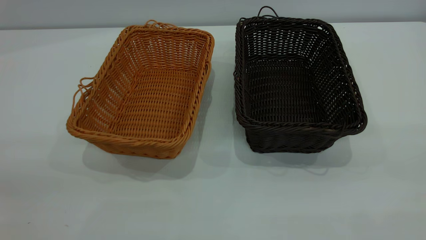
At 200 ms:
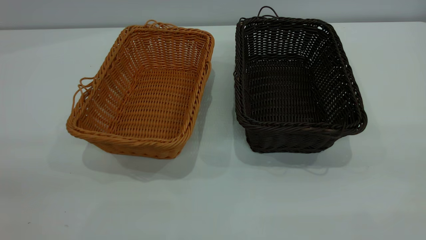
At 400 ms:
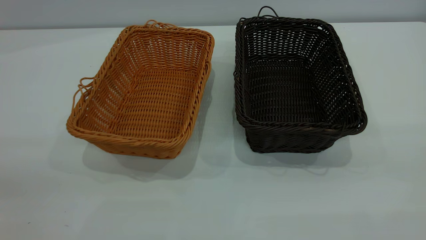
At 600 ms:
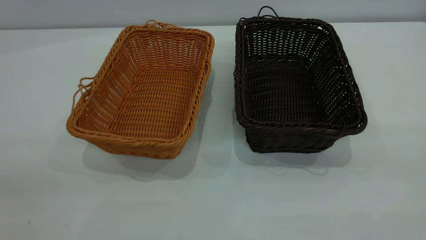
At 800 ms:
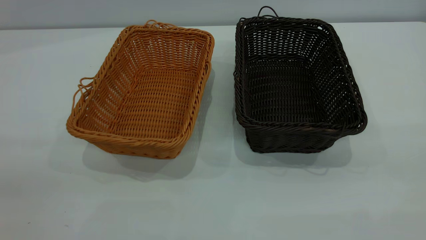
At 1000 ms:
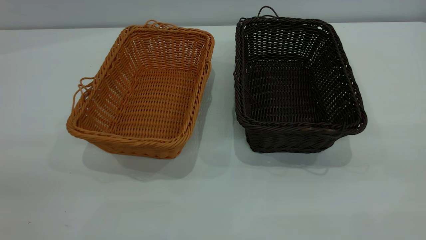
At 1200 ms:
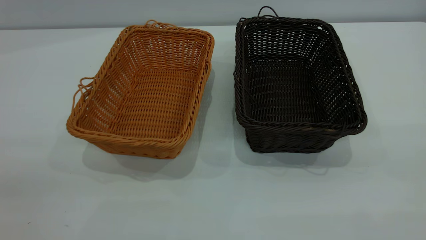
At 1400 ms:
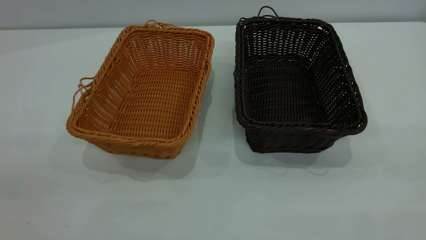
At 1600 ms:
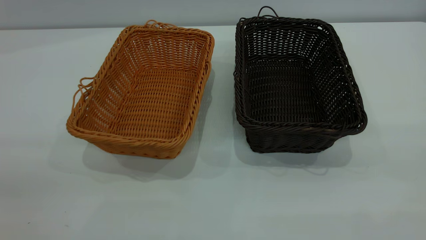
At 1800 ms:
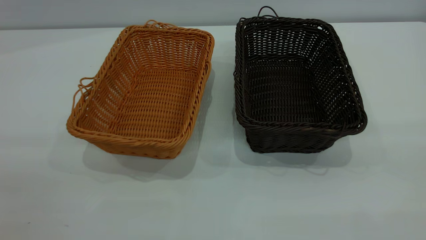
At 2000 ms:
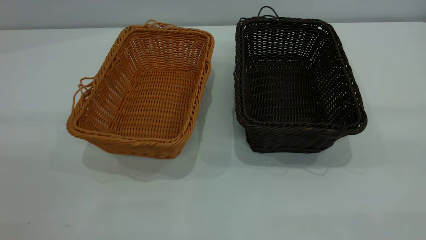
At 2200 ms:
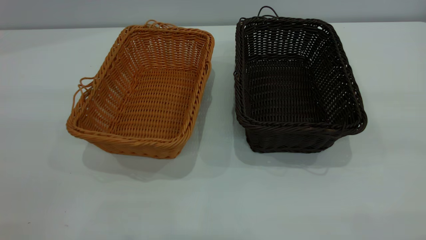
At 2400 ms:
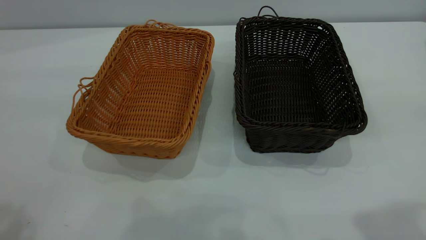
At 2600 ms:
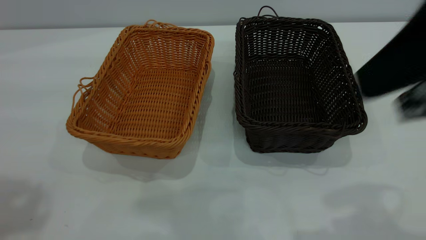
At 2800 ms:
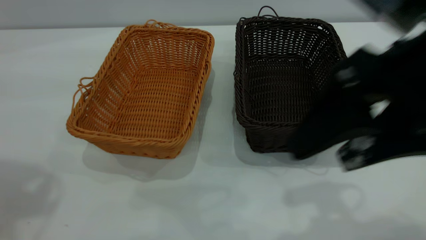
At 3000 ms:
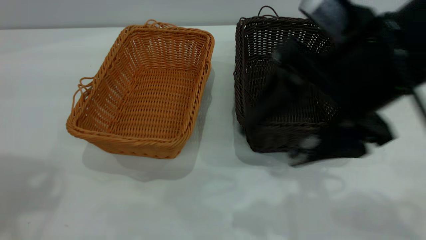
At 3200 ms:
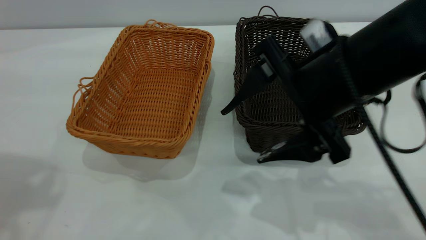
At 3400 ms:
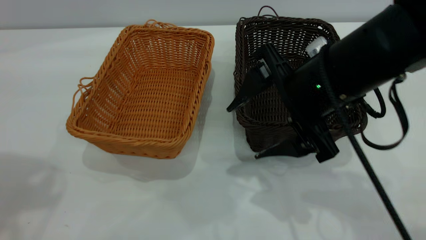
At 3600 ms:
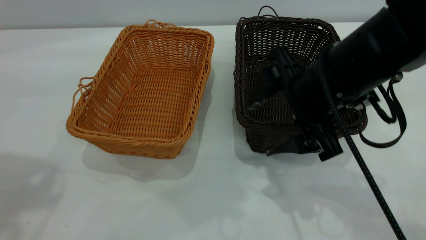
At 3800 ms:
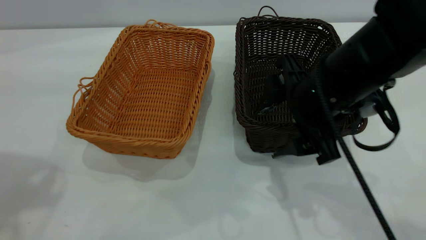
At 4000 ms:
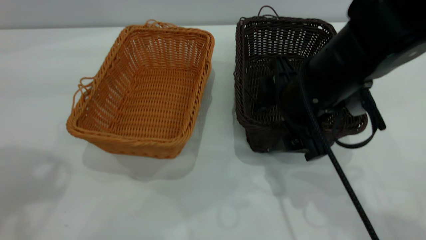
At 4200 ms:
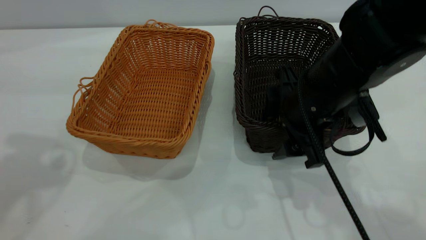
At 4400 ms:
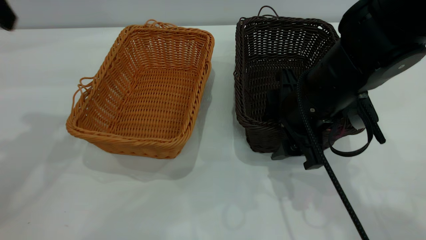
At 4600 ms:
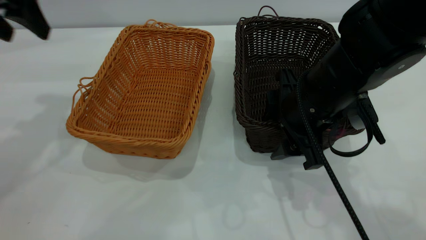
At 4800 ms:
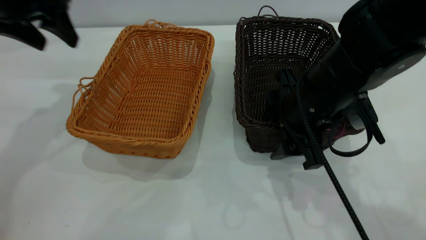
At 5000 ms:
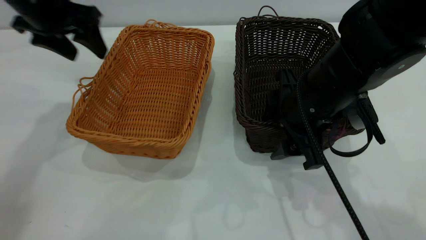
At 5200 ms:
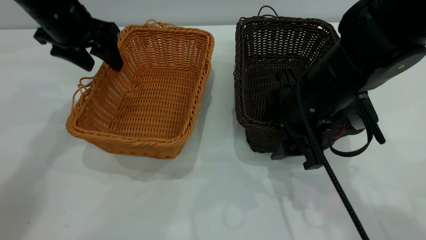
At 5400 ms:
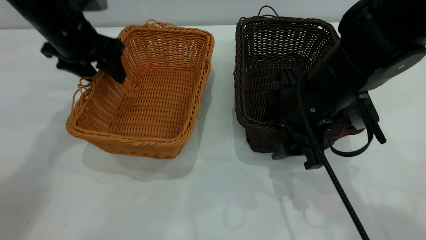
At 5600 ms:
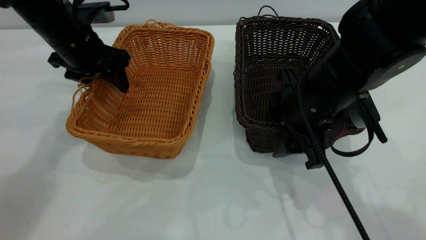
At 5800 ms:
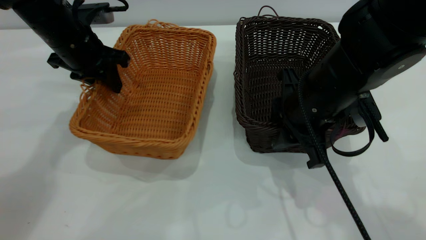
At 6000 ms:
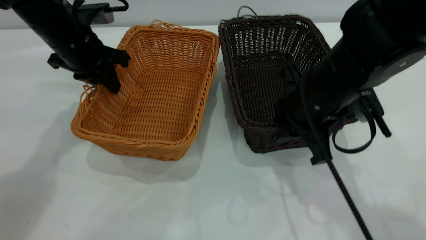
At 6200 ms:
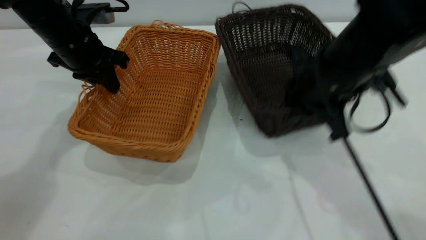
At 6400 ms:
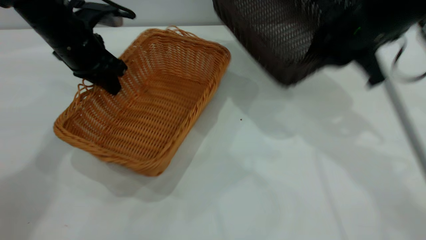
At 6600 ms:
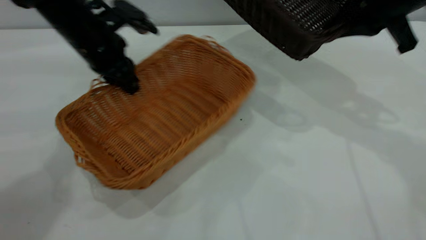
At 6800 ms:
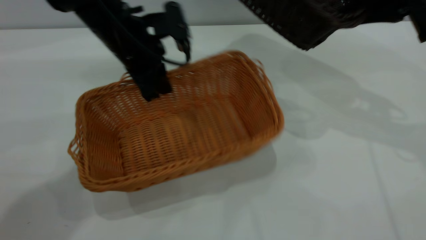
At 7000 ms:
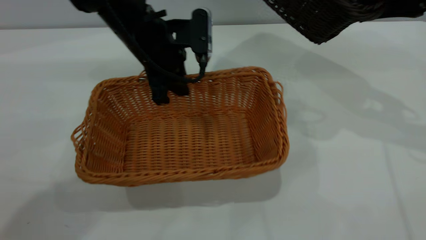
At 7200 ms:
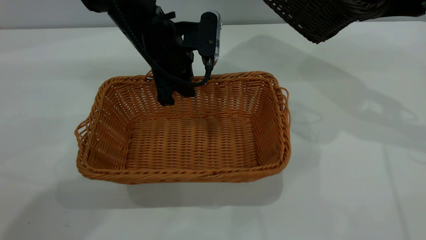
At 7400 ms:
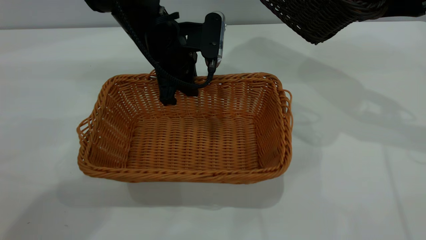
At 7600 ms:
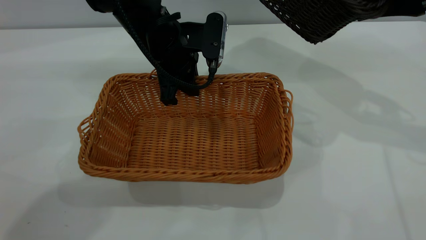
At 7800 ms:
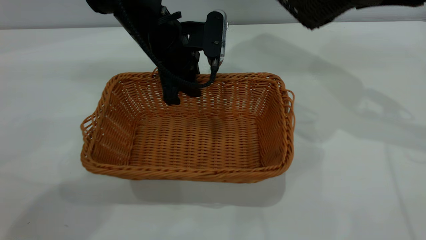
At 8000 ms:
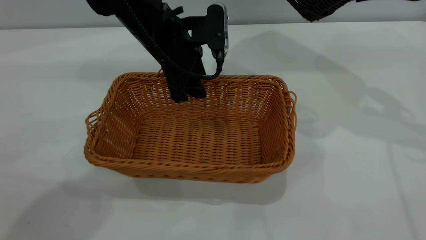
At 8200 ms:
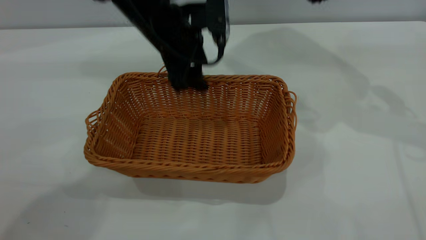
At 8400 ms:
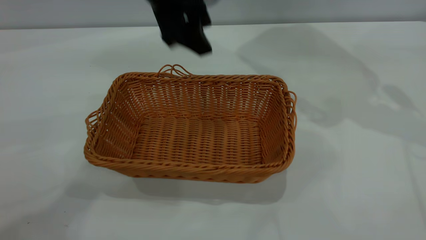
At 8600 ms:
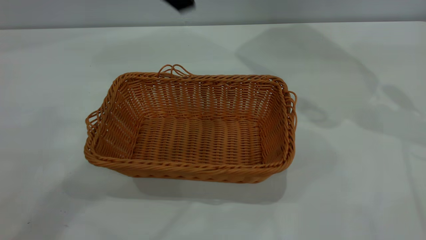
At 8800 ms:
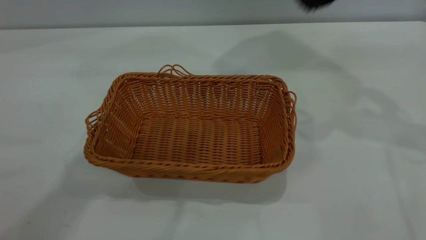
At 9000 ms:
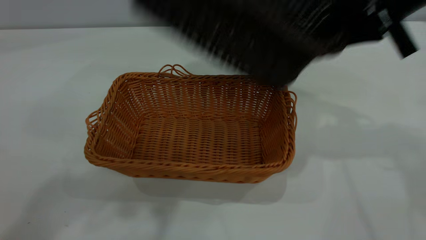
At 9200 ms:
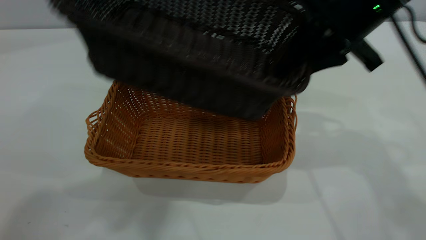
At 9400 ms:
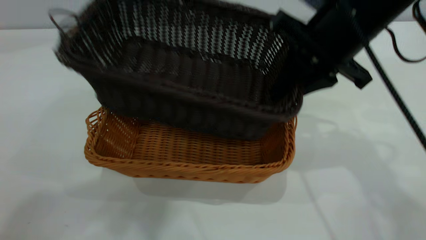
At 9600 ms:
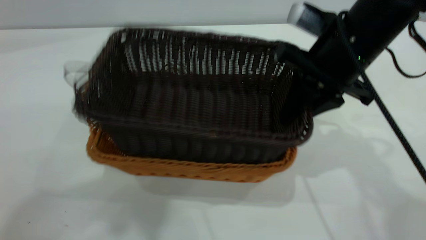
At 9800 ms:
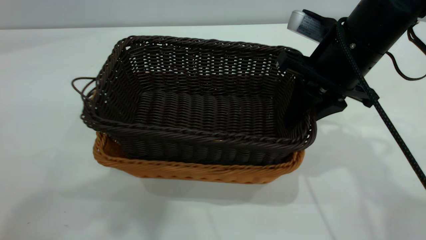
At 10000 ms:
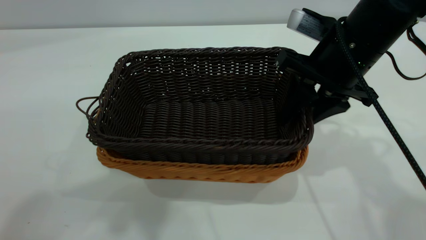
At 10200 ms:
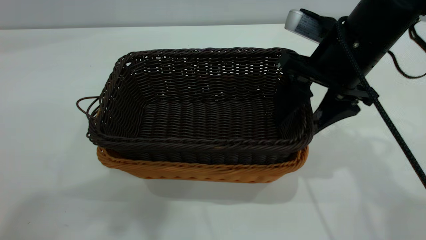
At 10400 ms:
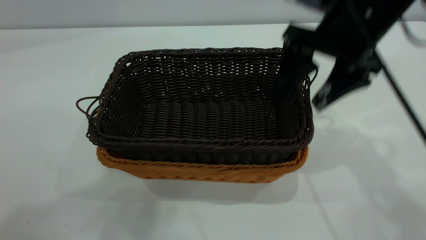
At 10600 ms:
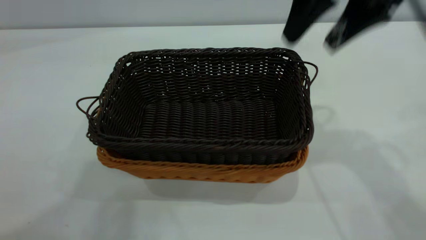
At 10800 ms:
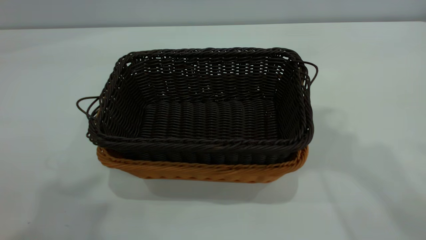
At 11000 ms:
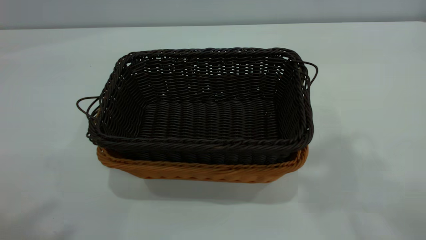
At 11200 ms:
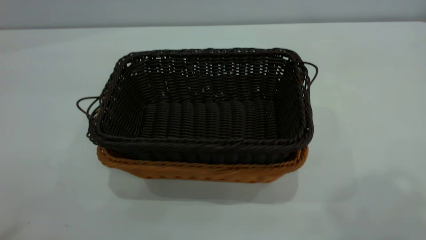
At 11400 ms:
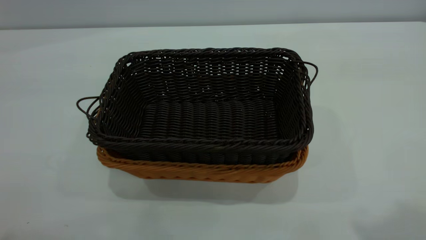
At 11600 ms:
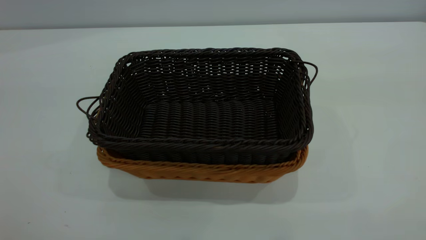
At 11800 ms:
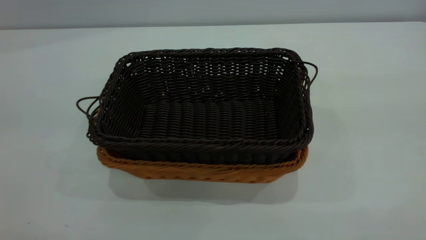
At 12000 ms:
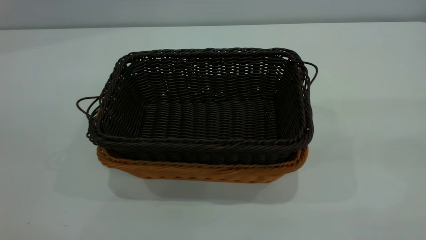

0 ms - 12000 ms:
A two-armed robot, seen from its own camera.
Task of the whole recording: the left gripper grasp the brown basket and place it in the center of the table, the right gripper grasp the black basket and place it inside the brown one.
Step, 0 ms - 6200 ms: Pick up the light basket with the right gripper.
Step, 6400 ms - 8200 ms: Place the light-colored basket in the center.
Step, 8400 ms - 10400 ms: Place the dark basket on top of the light basket.
0 ms - 1600 ms: Both grippers stay put.
1600 ms - 3000 ms: The right gripper moves forward, to the left and downward, about 30 cm.
3000 ms - 4400 ms: The left gripper shifts about 15 cm forward and downward. The right gripper shifts approximately 10 cm downward and forward.
4400 ms - 6000 ms: The right gripper closes its fingers. The left gripper goes roughly 20 cm downward, forward and to the right, and closes its fingers.
6000 ms - 7600 ms: The left gripper heads to the right, covering approximately 15 cm; the right gripper travels to the right, upward and forward by about 20 cm.
7600 ms - 9000 ms: The right gripper goes some 10 cm to the left. Meanwhile the left gripper travels upward and backward by some 35 cm, and opens its fingers.
9000 ms - 10400 ms: The left gripper moves approximately 5 cm, while the right gripper opens its fingers.
10400 ms - 12000 ms: The left gripper shifts some 20 cm backward, downward and to the left. The right gripper goes some 35 cm backward, upward and to the right.

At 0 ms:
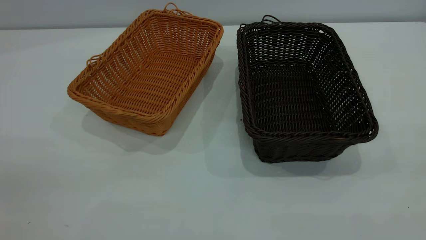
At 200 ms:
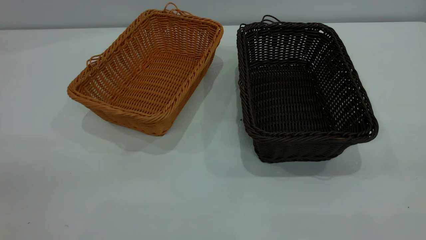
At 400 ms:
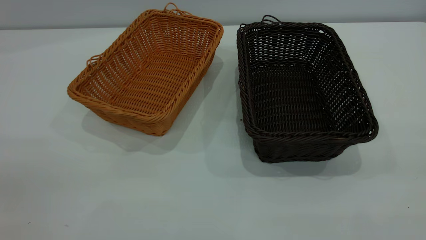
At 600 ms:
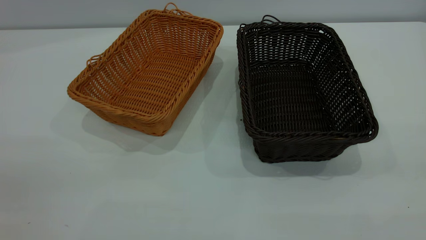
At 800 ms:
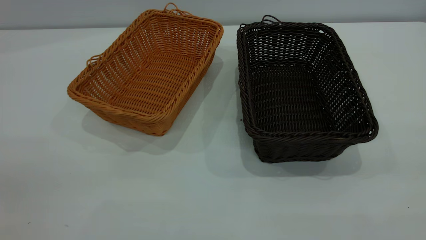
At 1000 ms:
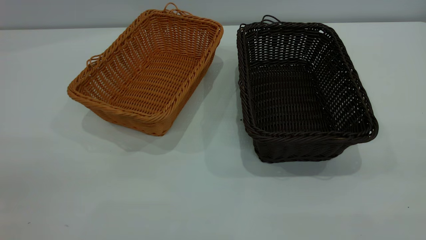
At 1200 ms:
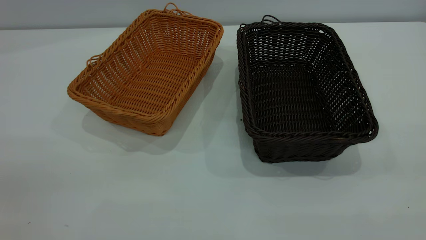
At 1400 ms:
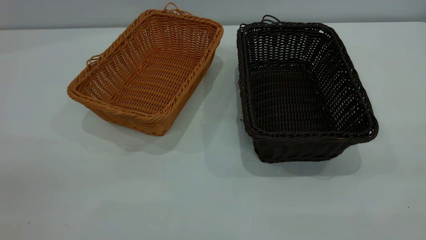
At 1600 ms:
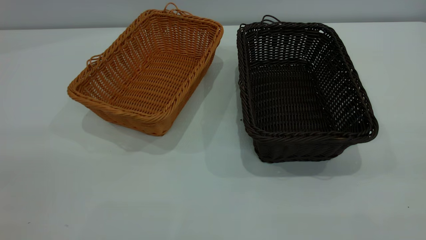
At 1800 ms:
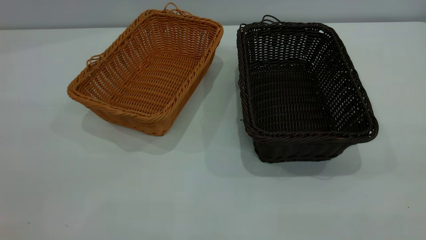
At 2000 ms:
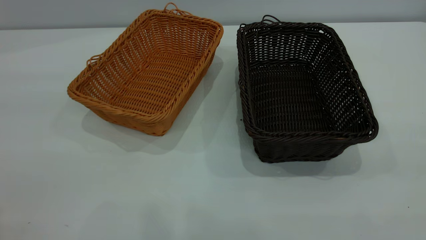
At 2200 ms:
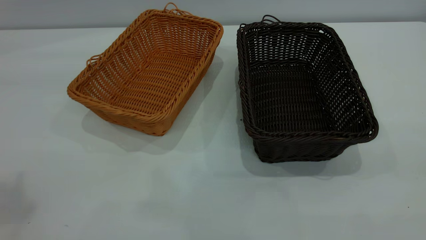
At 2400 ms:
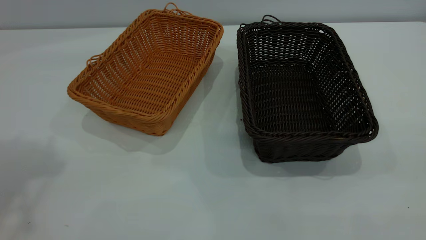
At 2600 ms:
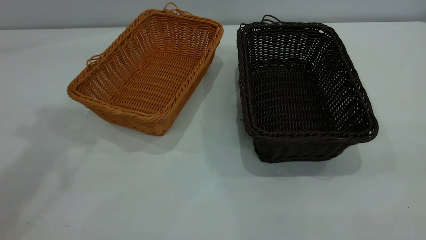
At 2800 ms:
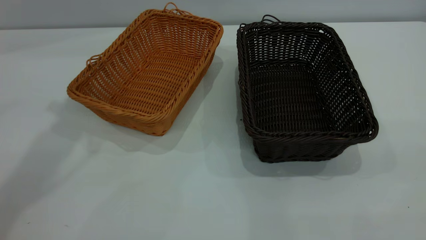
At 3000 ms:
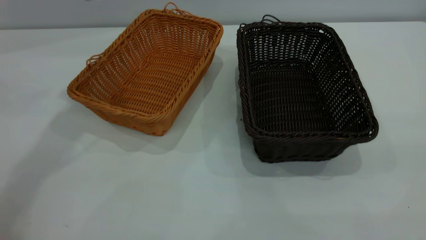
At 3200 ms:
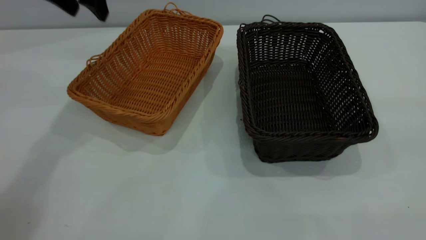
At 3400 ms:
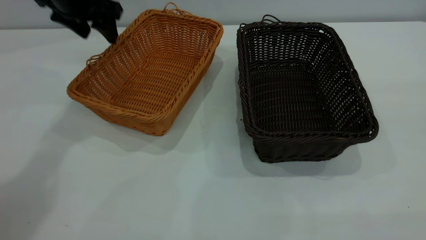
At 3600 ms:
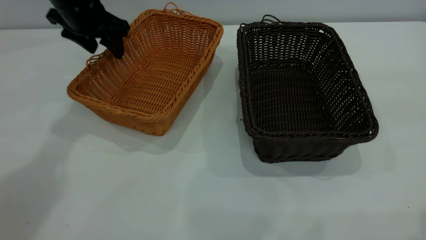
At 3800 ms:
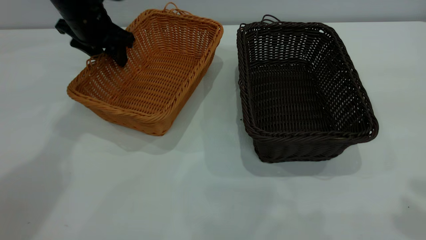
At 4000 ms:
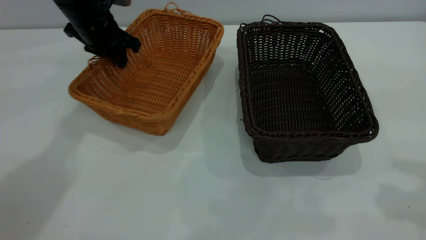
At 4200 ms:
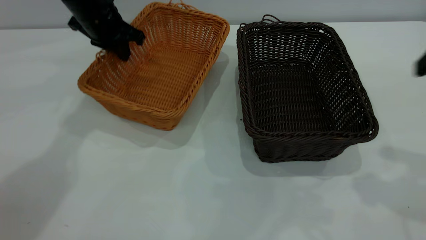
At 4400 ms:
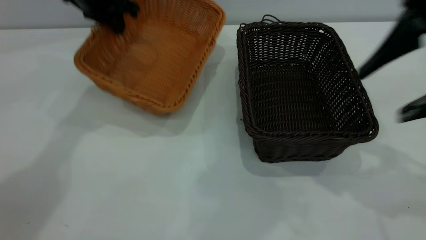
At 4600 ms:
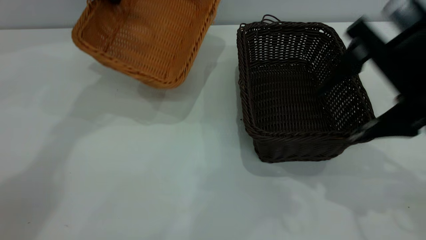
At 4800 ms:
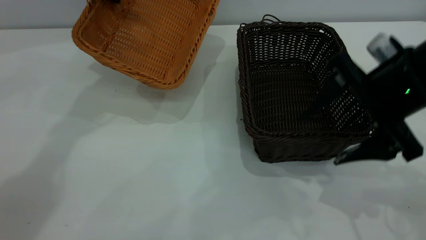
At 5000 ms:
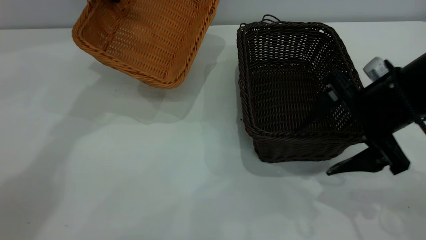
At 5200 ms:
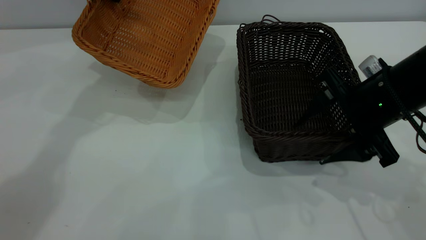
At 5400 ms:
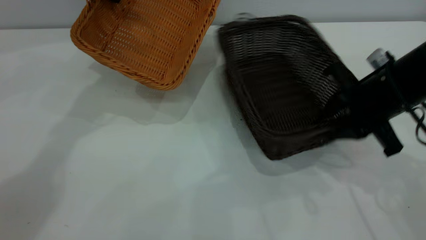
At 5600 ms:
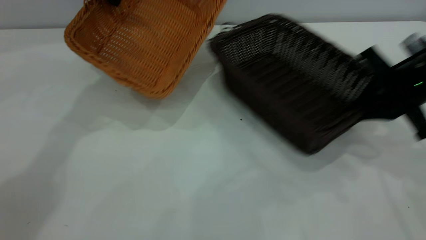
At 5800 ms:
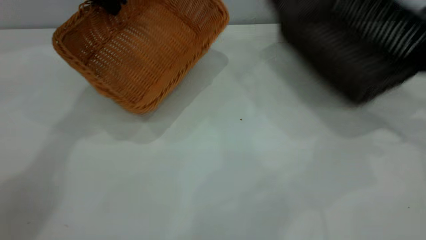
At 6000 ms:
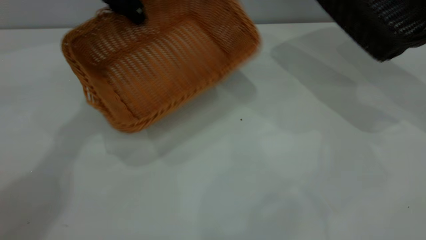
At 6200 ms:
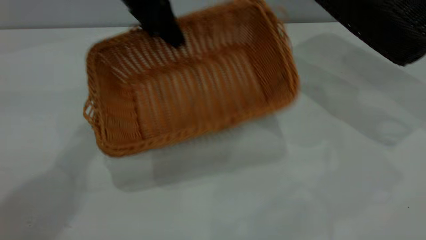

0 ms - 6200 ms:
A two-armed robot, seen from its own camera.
Task of the whole recording: the left gripper grasp the brown basket and place it in the center of the table, the right gripper grasp the black basket and place it inside the brown one.
Step, 0 ms - 4400 ms: Pick up the light basket with the right gripper.
1600 ms - 3200 ms: The left gripper goes some 40 cm forward.
3200 ms - 4600 ms: The right gripper travels forward, downward and to the left by some 30 cm. The left gripper moves about 10 cm downward and comes back, and closes its fingers.
4600 ms - 6200 ms: The right gripper moves to the right, about 20 cm, and closes its fingers, while the left gripper travels to the right and backward by about 10 cm.
